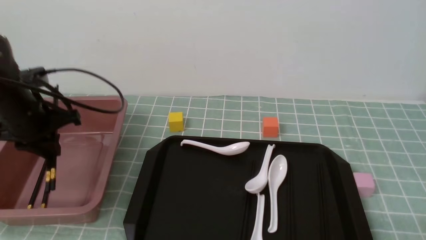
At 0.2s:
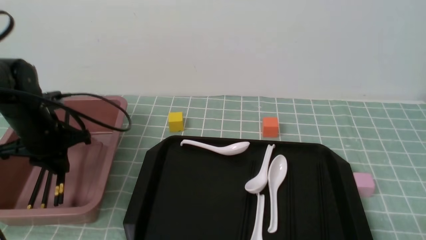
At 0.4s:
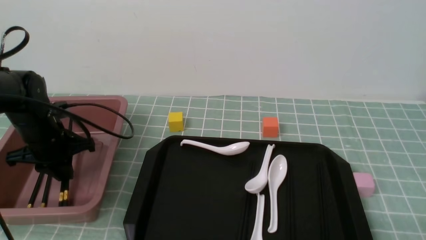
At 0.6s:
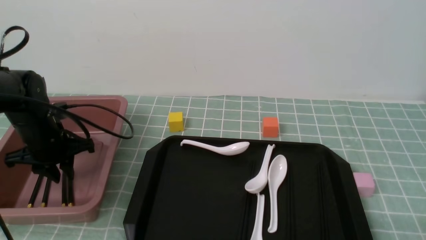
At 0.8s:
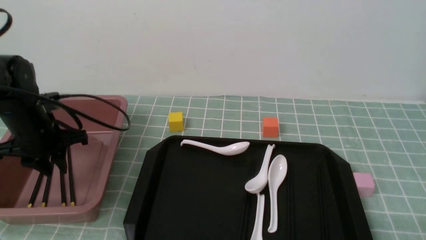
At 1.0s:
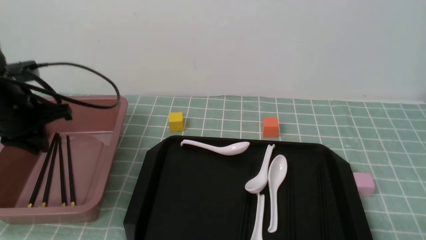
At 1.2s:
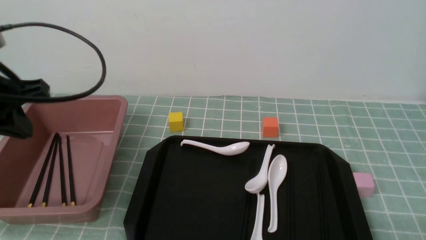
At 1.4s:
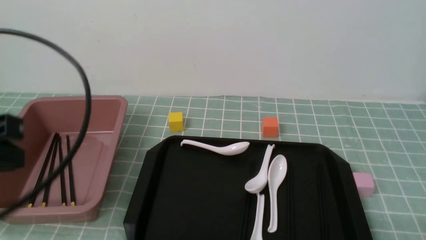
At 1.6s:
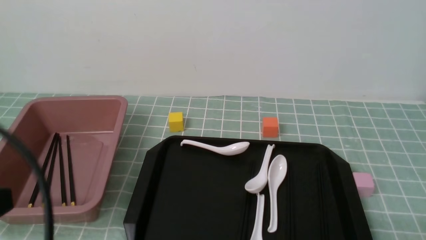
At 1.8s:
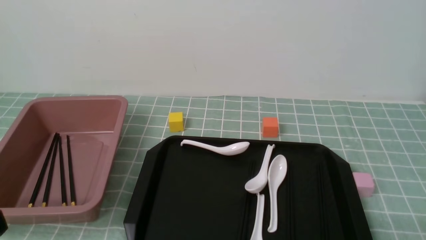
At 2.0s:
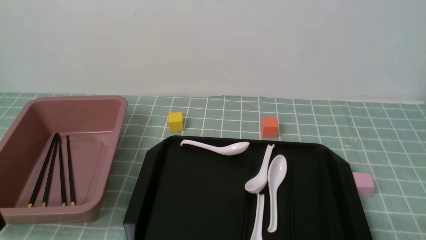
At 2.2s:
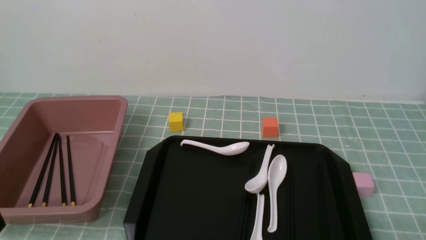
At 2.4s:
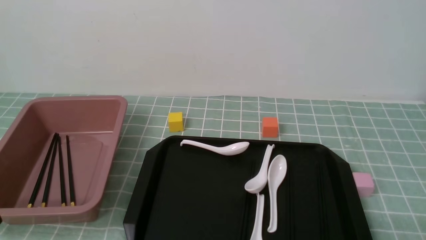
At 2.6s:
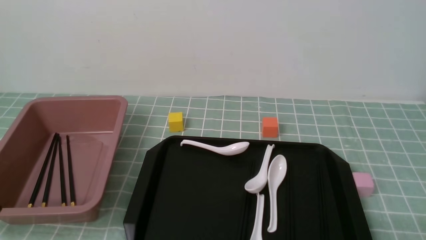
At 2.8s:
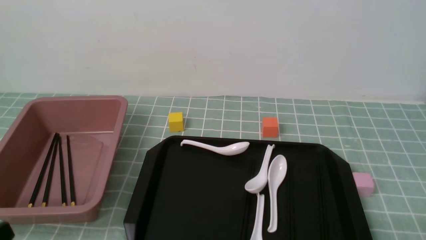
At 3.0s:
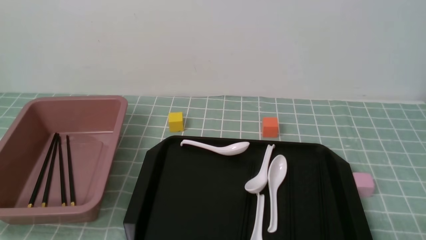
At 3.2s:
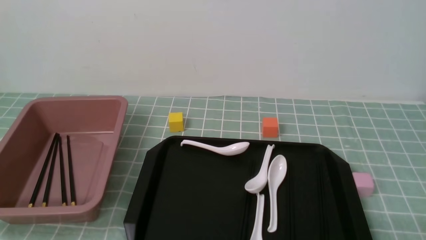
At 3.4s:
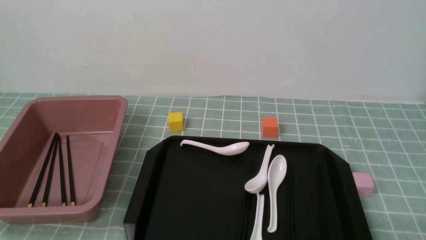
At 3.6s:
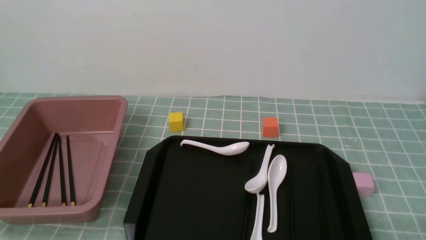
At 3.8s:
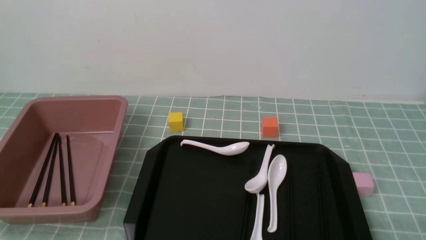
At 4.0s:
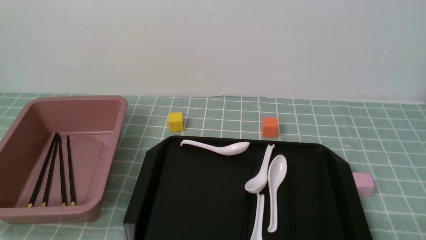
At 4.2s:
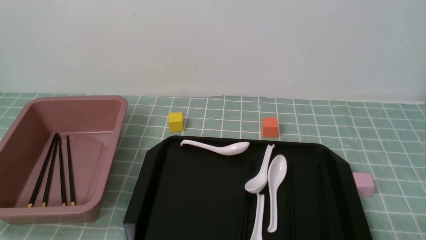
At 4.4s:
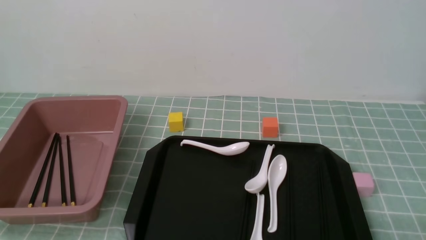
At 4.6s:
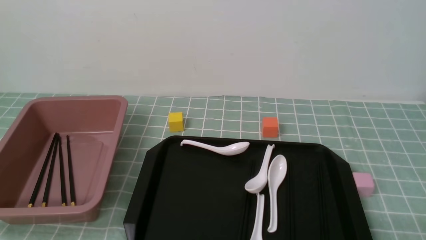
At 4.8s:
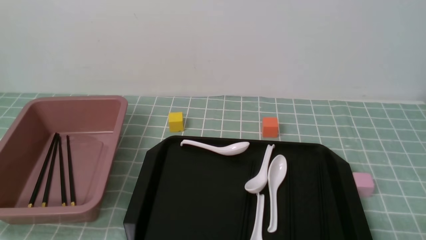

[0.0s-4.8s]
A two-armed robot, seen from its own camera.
Step, 0.0s to 0.8s: use the left arm to put the chopsticks into the lunch box.
0.0s to 1.6s: The left gripper heads backward, covering about 25 cm, and closes.
1.6s to 3.2s: The left gripper is displaced downward by approximately 15 cm.
3.2s to 4.8s: The two grippers keep their place.

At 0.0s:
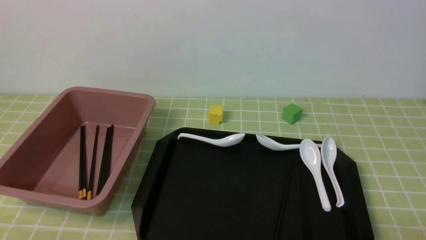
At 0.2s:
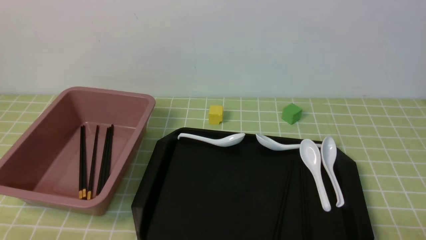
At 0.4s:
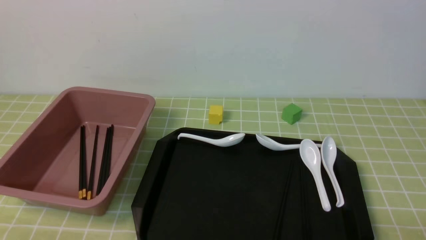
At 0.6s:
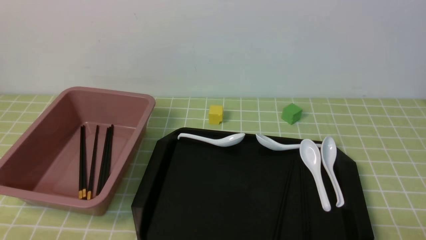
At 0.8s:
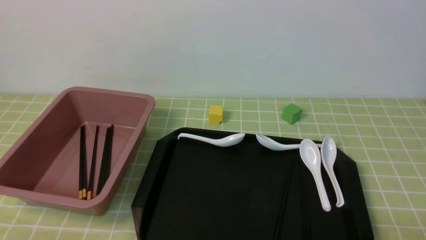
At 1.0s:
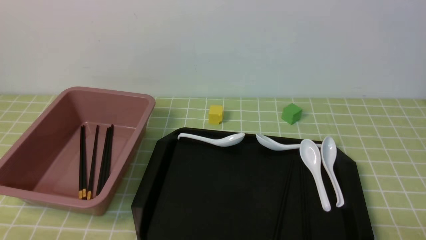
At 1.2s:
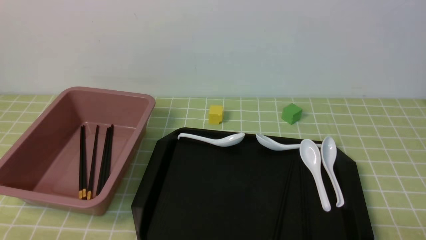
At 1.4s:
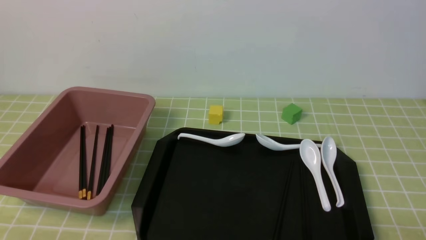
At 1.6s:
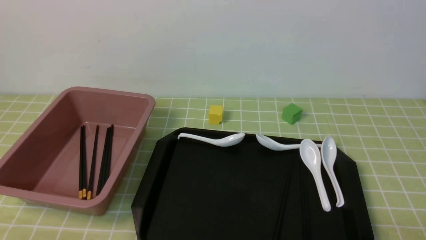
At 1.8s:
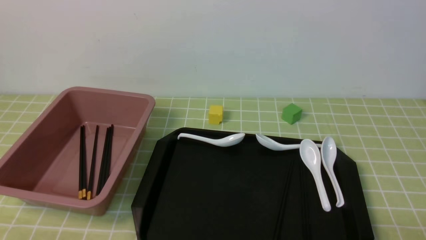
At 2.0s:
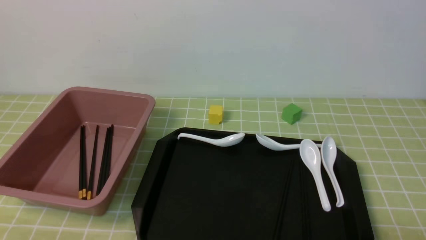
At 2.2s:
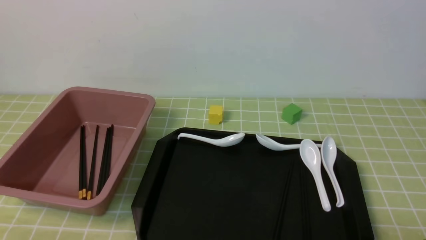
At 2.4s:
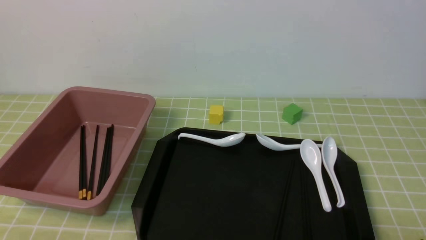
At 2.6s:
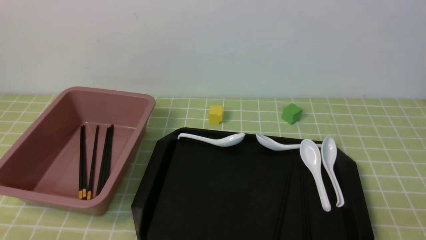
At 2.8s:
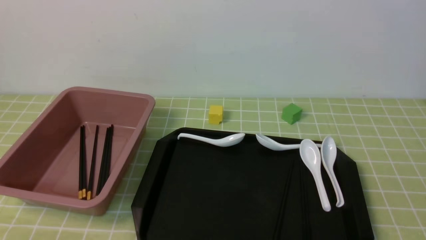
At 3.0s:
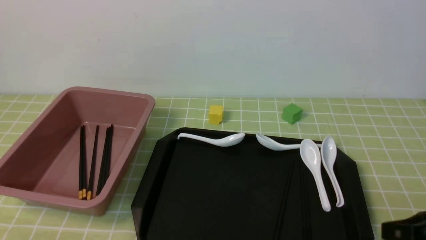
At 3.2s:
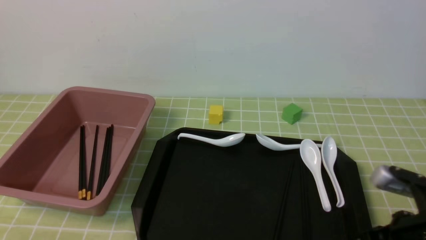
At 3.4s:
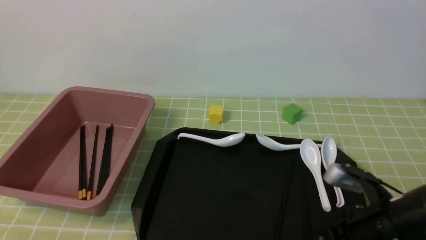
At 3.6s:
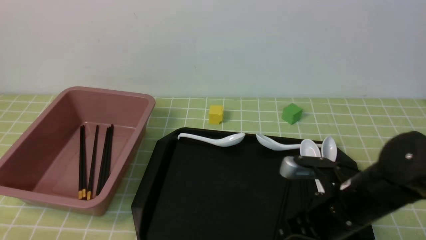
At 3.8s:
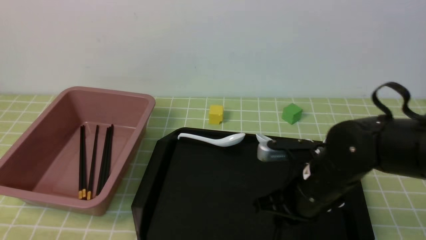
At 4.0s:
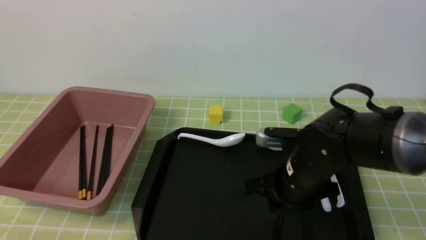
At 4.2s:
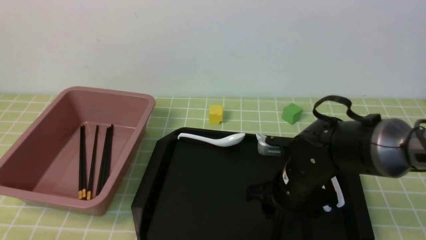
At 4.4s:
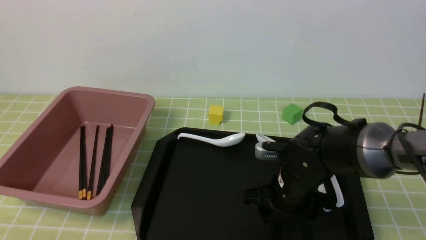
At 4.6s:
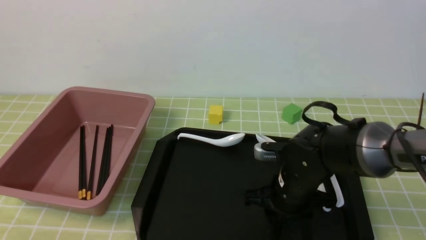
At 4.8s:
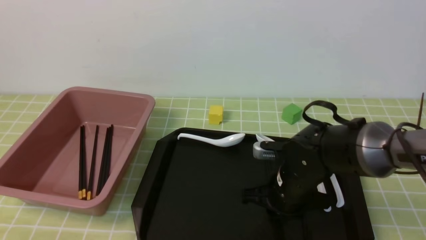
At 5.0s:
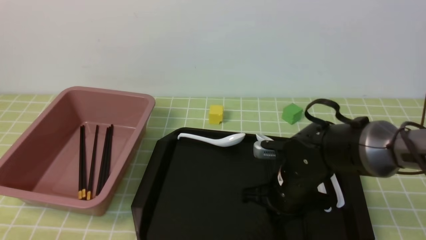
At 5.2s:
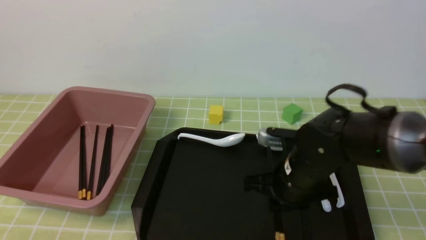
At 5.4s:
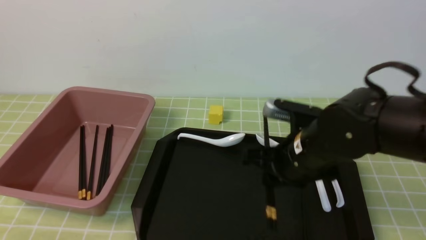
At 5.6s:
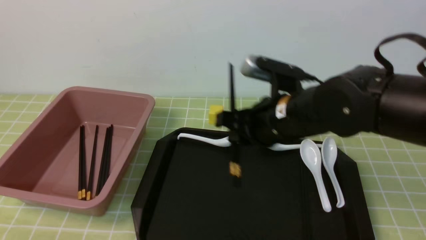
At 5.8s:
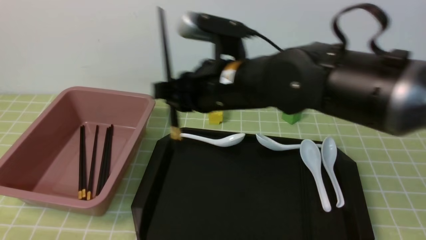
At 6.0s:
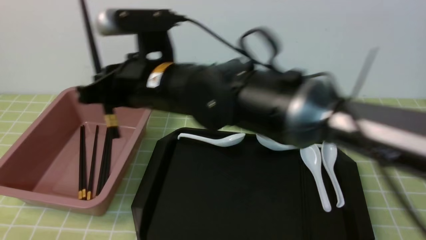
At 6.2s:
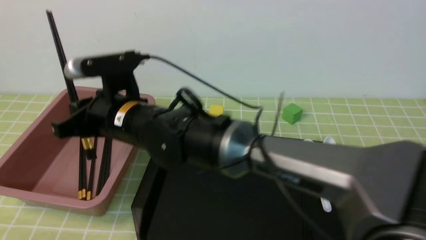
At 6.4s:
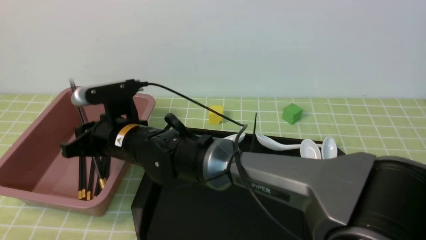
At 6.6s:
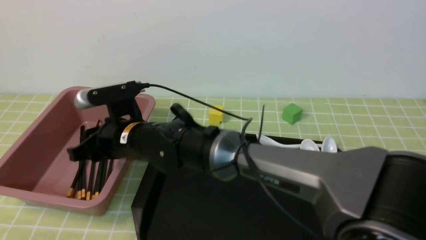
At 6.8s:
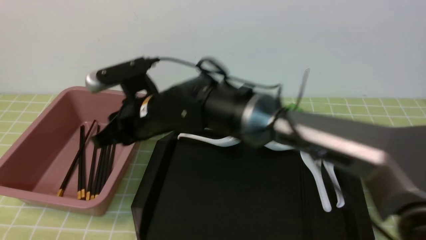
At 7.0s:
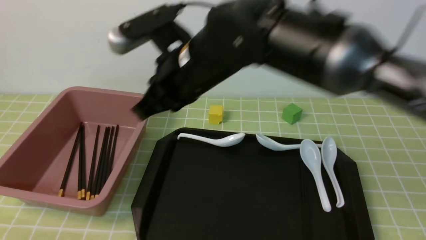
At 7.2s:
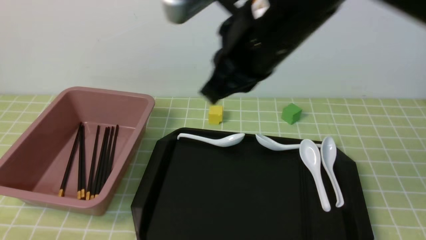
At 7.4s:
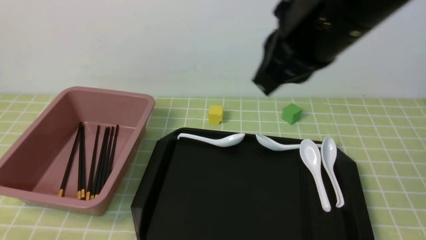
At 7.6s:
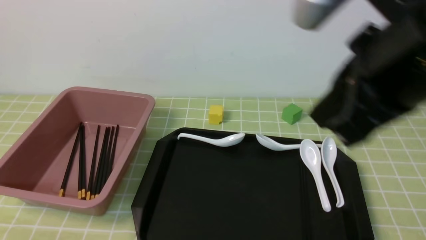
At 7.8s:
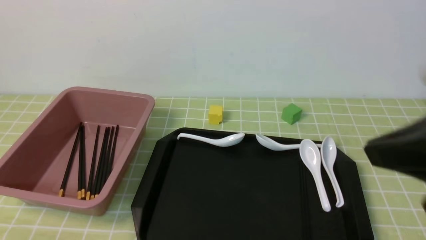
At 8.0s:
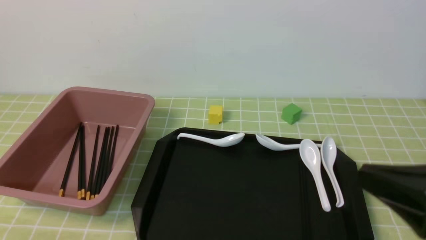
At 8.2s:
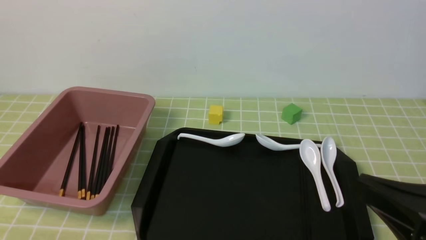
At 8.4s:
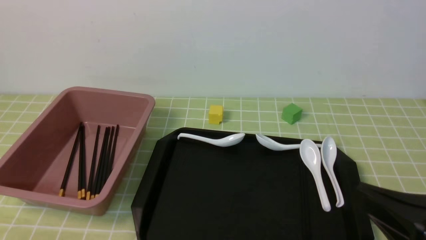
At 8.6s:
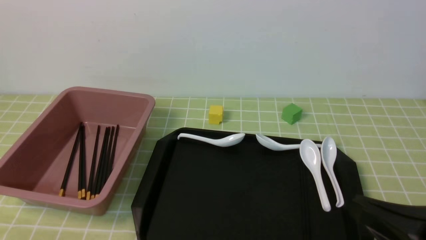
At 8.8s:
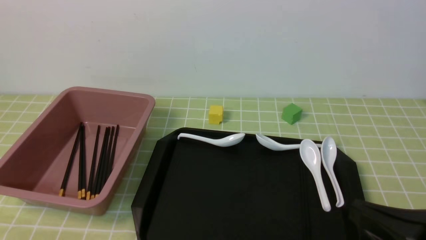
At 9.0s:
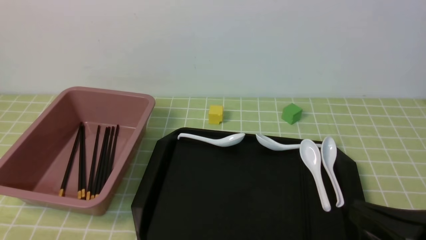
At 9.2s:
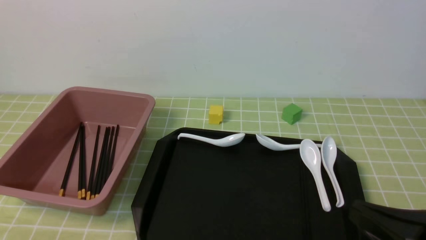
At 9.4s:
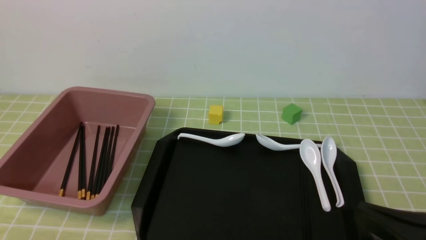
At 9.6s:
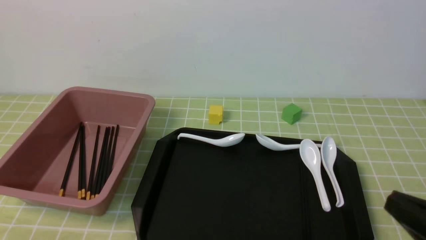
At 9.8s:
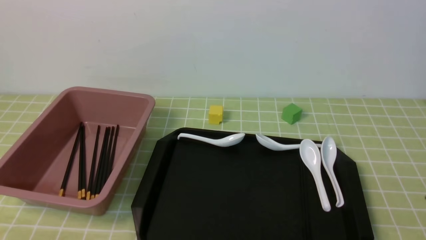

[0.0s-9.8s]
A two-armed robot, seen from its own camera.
Step, 0.0s to 5.4s: use the right arm to grab a pair of chopsticks.
Step, 5.6s to 6.8s: use the right arm to put the chopsticks into the lunch box.
0.0s to 1.4s: Both grippers stay put.
2.8s to 4.2s: The right gripper moves forward, to the left and downward, about 30 cm, and opens its fingers.
4.2s to 5.6s: The right gripper goes approximately 10 cm upward, and closes up.
5.6s to 7.0s: The right gripper travels to the left and upward by approximately 10 cm.
7.0s to 8.4s: The right gripper goes about 30 cm to the right and backward.
8.4s to 9.8s: The right gripper moves approximately 5 cm.

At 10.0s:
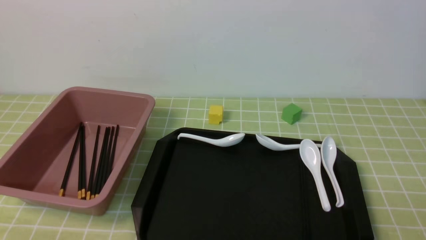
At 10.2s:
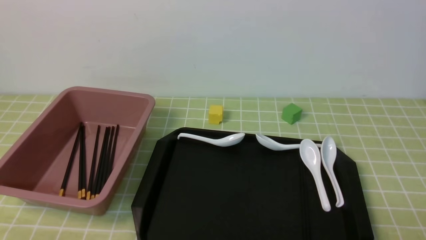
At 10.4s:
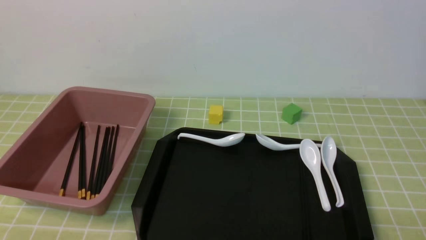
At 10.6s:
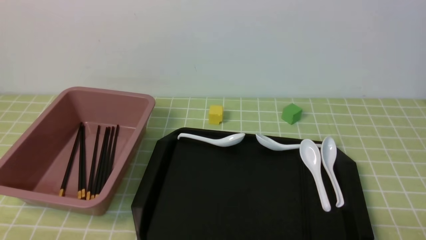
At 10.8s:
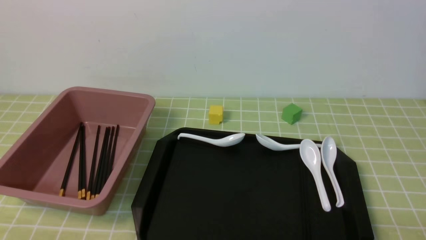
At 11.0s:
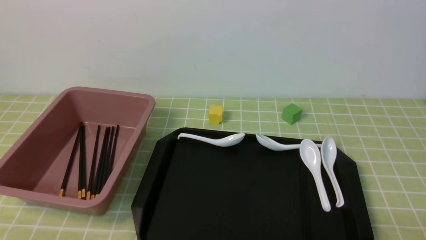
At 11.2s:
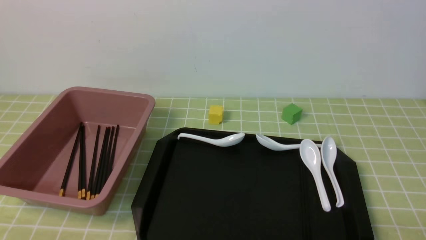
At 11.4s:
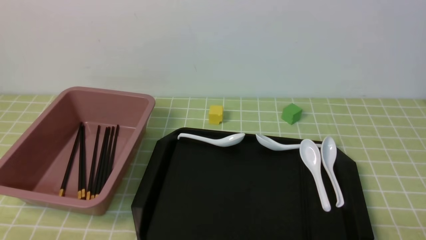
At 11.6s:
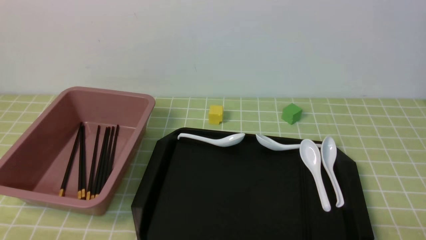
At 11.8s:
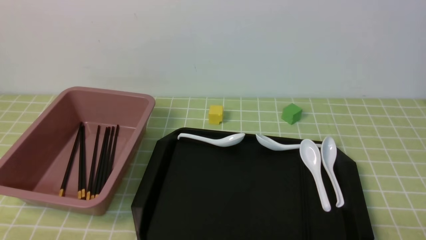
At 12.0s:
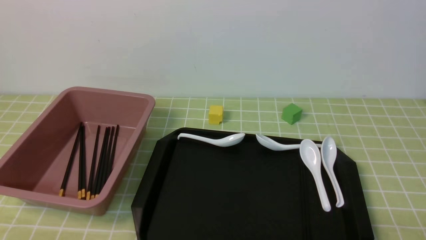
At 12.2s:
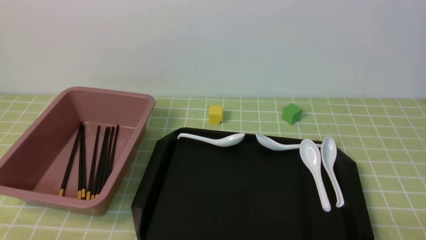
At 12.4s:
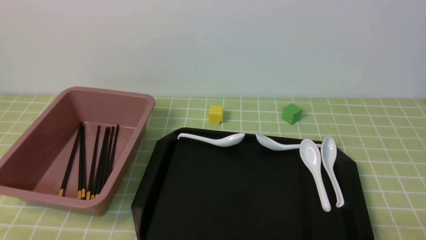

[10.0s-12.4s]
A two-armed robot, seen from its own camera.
11.2s to 12.4s: The two grippers keep their place.
